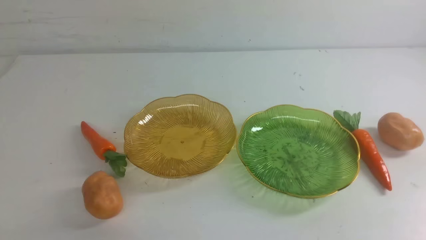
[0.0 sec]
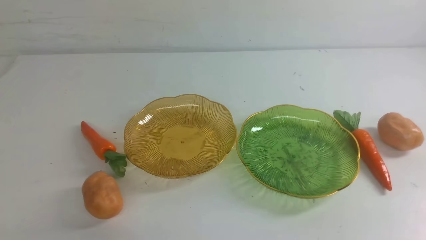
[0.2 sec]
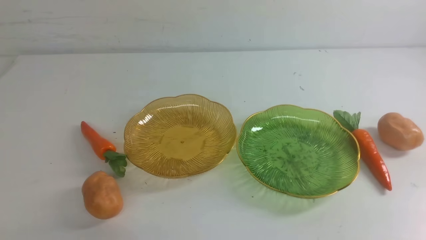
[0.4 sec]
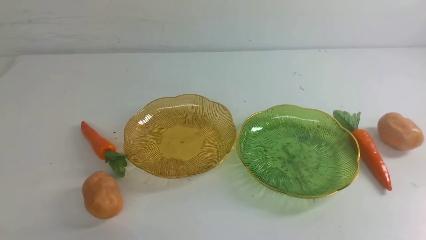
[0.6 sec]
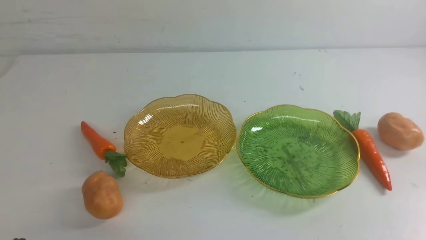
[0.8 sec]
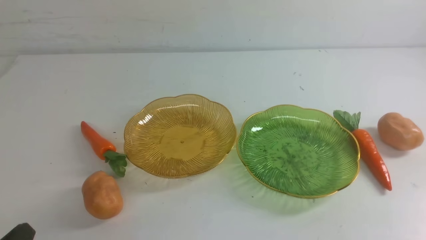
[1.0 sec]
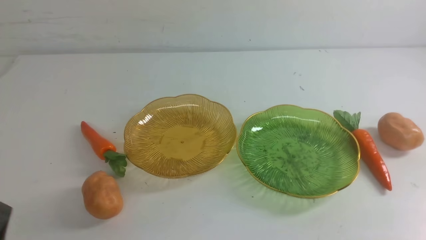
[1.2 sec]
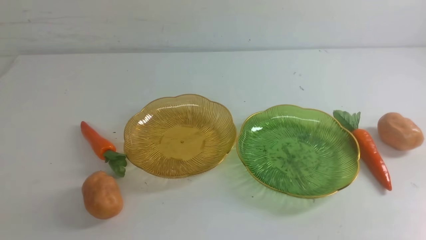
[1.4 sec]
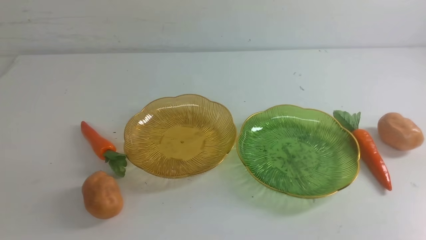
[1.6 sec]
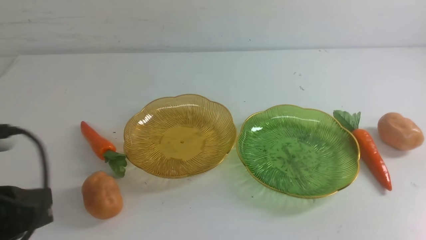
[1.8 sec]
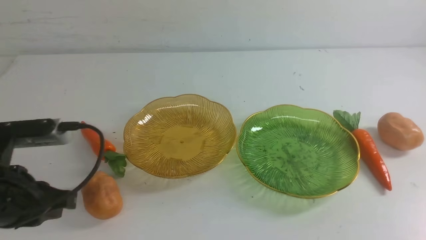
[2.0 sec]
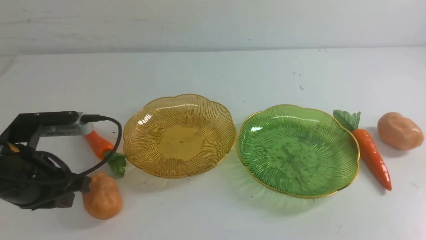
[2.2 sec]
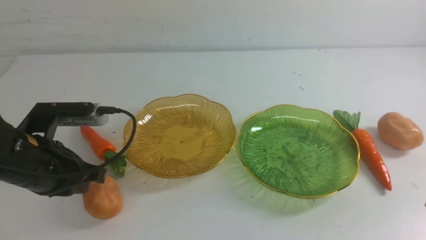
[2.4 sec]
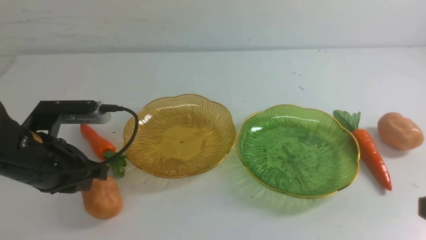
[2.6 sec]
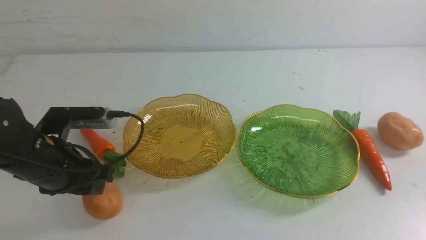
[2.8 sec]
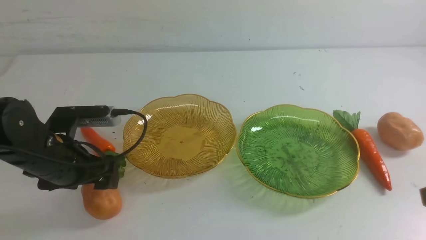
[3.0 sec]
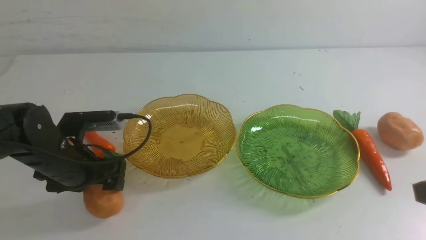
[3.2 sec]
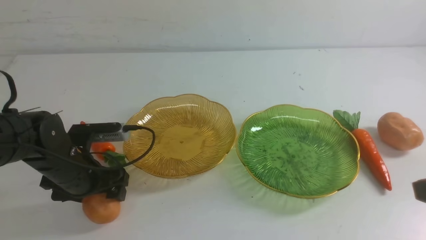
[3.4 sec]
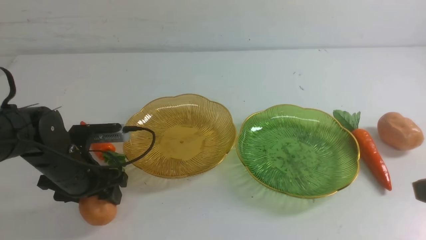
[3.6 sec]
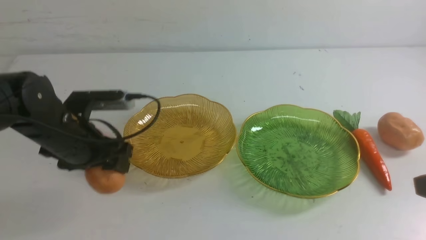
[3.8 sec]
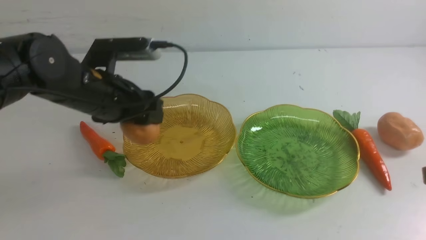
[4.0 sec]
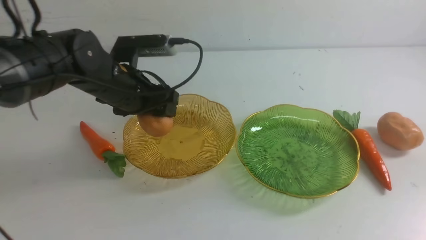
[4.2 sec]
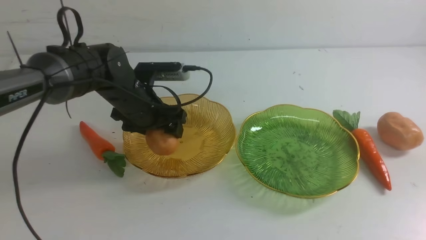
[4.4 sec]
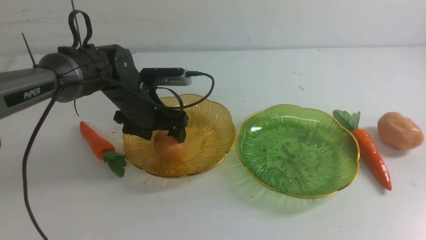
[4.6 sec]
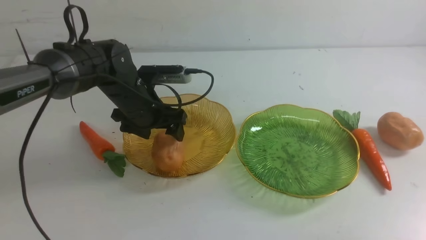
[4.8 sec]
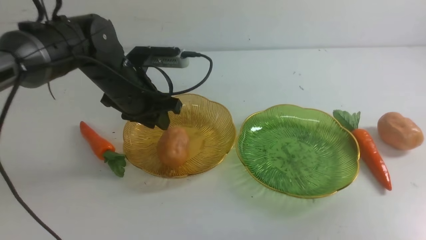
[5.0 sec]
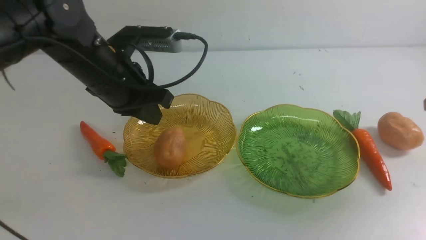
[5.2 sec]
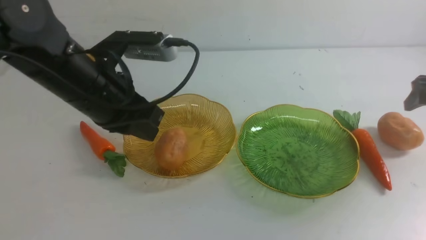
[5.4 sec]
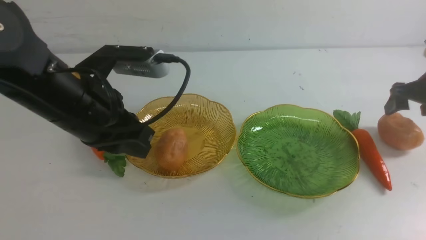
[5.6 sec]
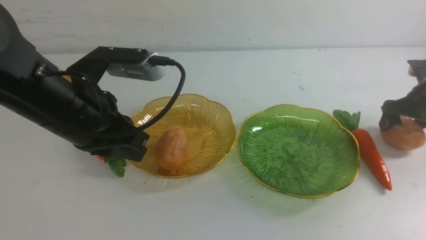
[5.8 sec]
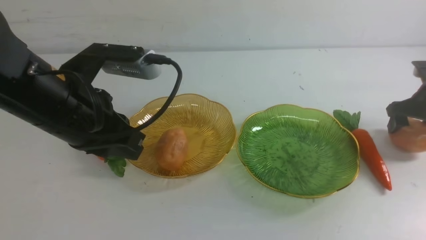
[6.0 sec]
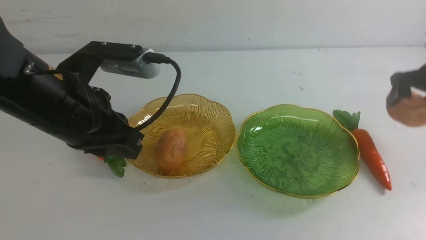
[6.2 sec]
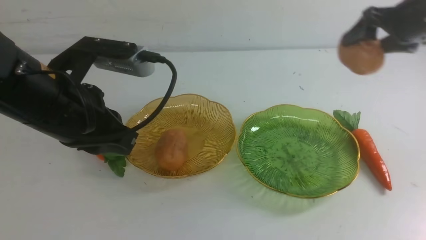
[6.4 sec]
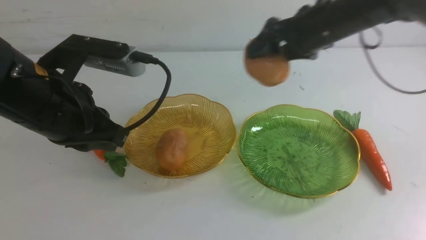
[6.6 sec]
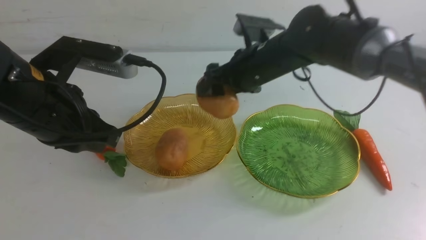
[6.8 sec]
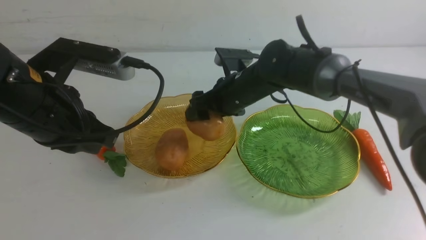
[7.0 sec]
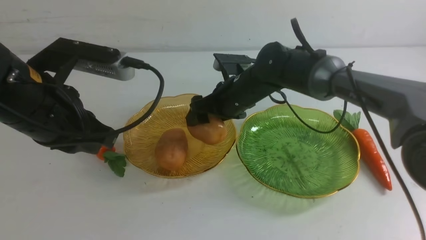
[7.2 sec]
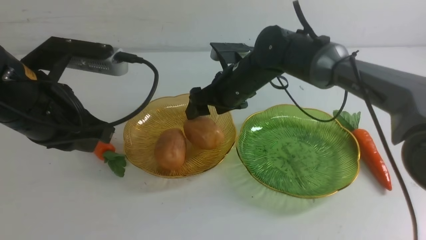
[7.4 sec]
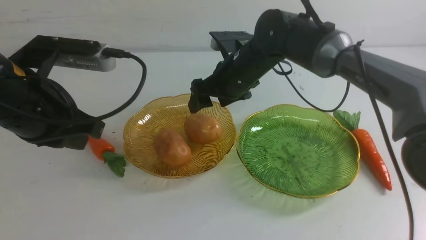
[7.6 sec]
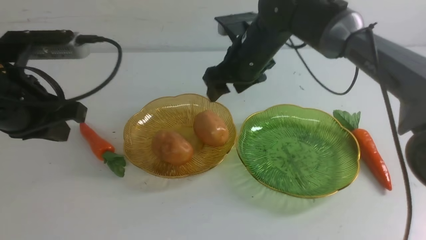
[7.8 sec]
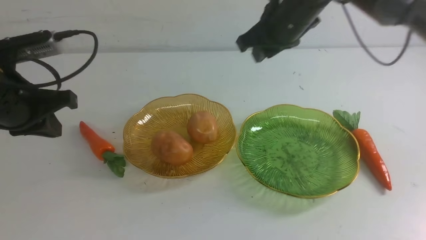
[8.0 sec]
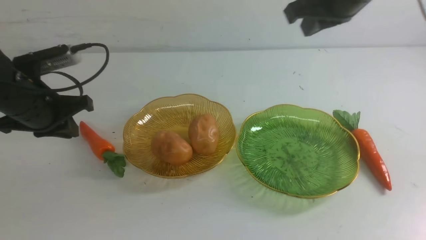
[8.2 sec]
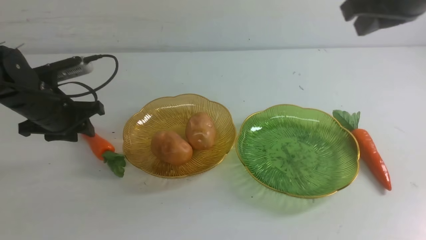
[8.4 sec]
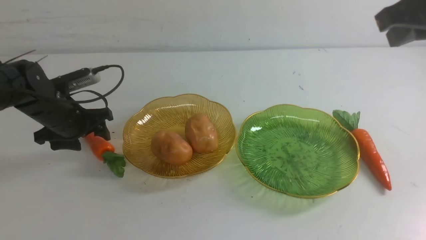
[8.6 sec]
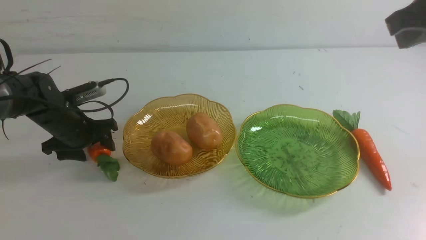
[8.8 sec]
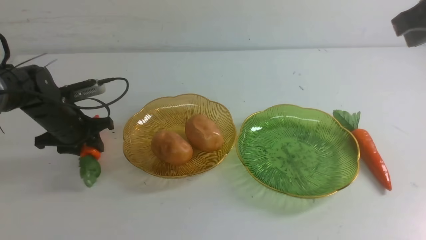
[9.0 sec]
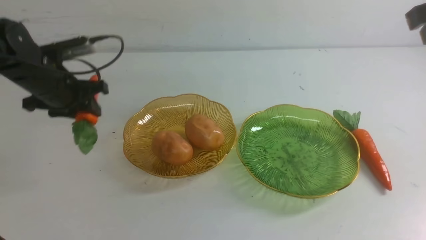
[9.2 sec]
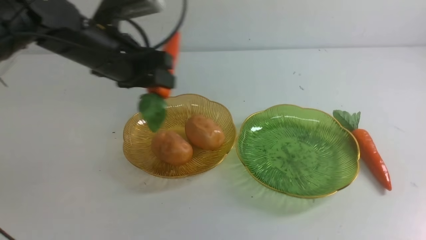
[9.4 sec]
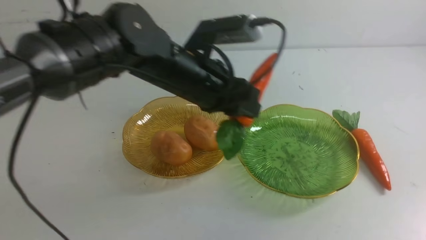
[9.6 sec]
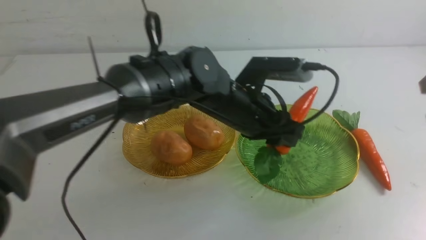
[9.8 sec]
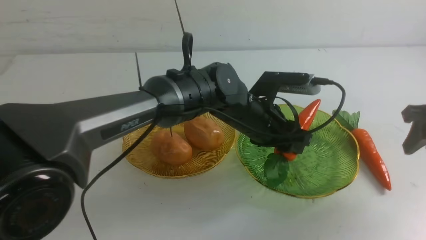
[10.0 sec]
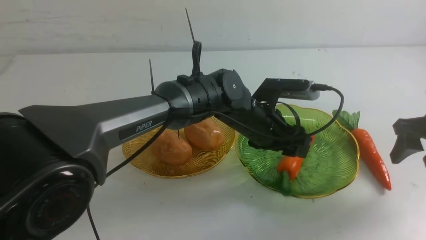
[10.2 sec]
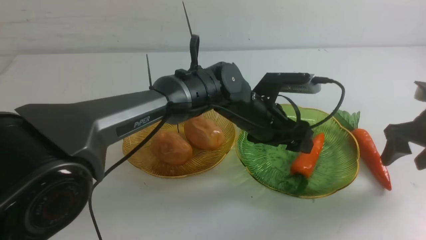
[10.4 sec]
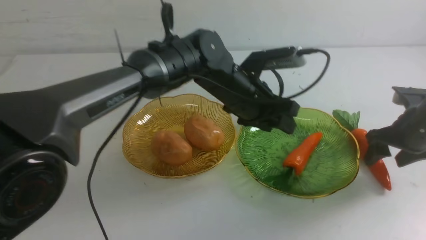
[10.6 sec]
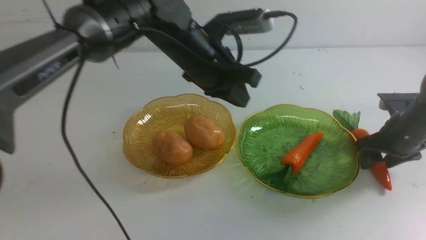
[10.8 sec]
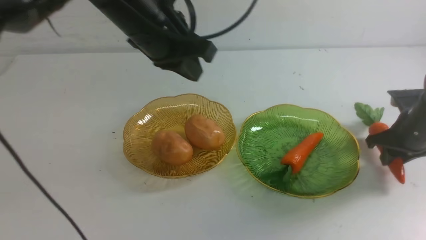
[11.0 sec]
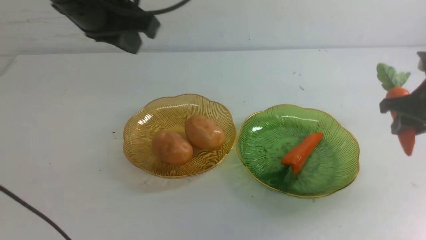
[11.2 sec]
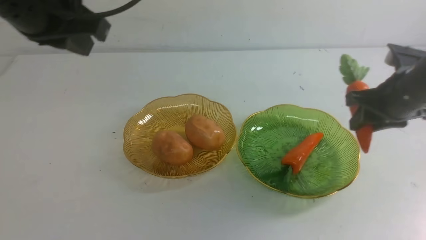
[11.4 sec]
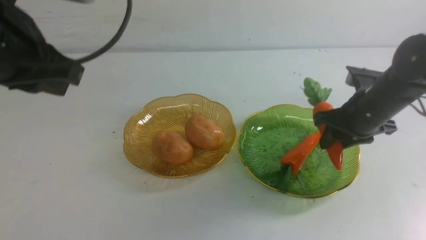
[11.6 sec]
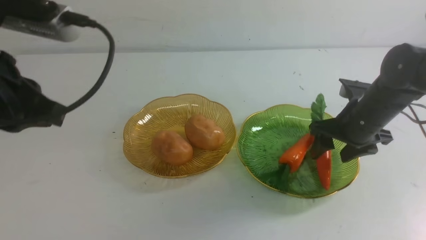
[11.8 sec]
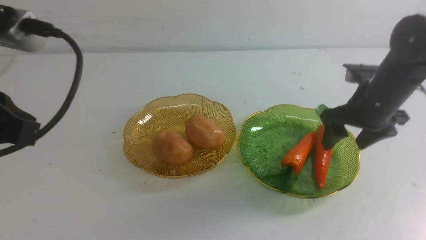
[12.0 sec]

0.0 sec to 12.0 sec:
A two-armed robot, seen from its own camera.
Step, 0.0 sec to 4.8 sec: Grab a potato with your left arm and put it on the left plate.
Step, 5.0 sec to 7.8 sec: Grab a potato with your right arm and put it on the left plate.
Step, 8.0 sec to 10.6 sec: use the left arm to grab a carrot and put it into the right plate.
1.6 sec to 3.0 sec: The left gripper travels forward and downward by approximately 25 cm, and opens up.
3.0 sec to 4.4 sec: The left gripper shifts approximately 15 cm forward and to the right.
4.4 sec to 6.0 sec: The left gripper is displaced backward and upward by about 20 cm, and closes. The right gripper travels forward and downward by roughly 30 cm, and opens.
6.0 sec to 7.6 sec: The left gripper shifts about 5 cm to the left; the right gripper heads to the left, covering roughly 30 cm.
7.6 sec to 9.0 sec: The left gripper goes about 15 cm forward and to the right, moves roughly 15 cm downward and comes back, and opens; the right gripper moves to the right, upward and backward, some 30 cm, and closes up.
9.0 sec to 10.4 sec: The left gripper shifts about 10 cm upward, travels to the right and back again, some 20 cm each way, and closes, while the right gripper travels downward by approximately 20 cm, and opens its fingers.
10.4 sec to 12.0 sec: The left gripper is displaced backward and to the left by approximately 30 cm. The right gripper is displaced backward and upward by about 40 cm, and closes.

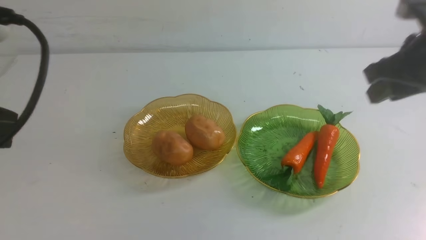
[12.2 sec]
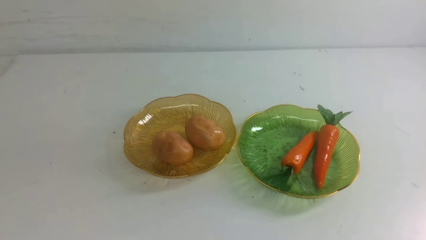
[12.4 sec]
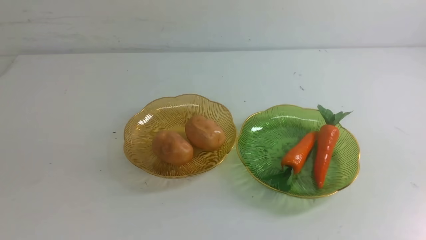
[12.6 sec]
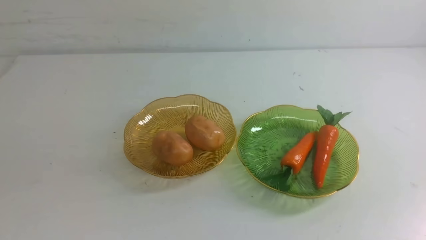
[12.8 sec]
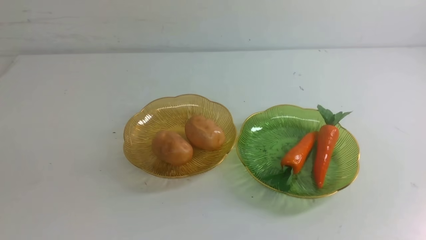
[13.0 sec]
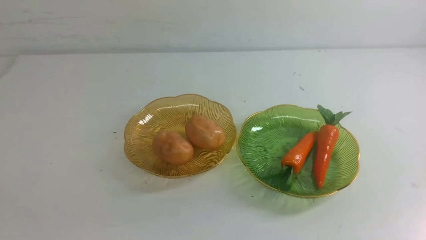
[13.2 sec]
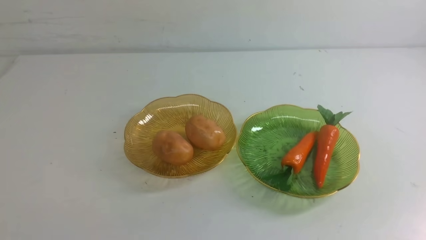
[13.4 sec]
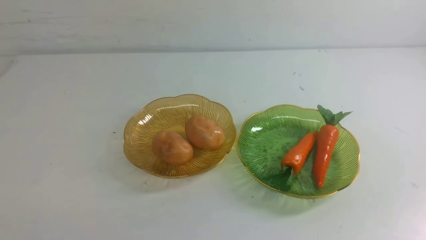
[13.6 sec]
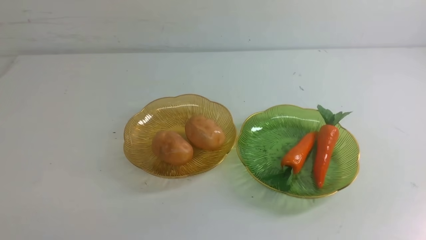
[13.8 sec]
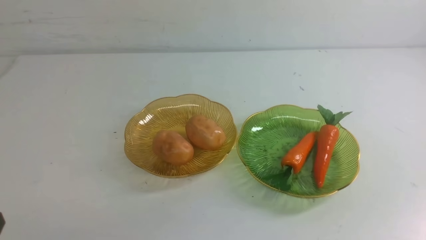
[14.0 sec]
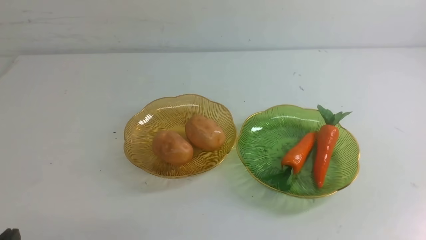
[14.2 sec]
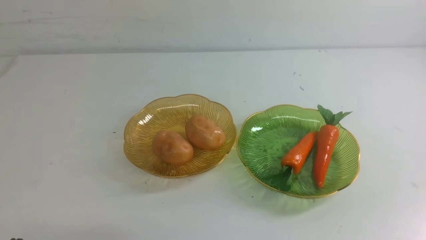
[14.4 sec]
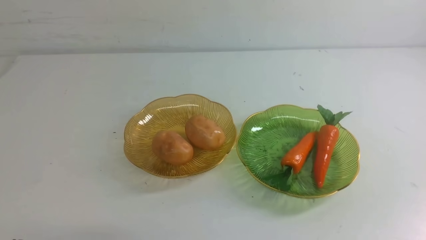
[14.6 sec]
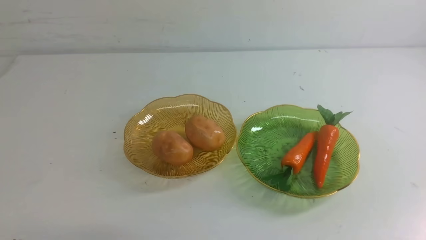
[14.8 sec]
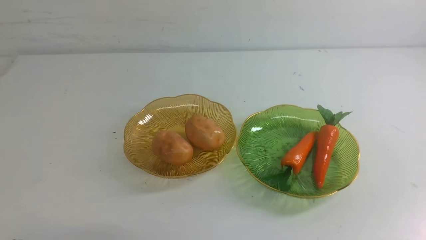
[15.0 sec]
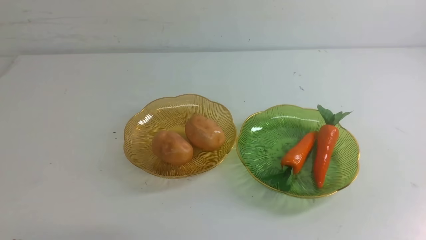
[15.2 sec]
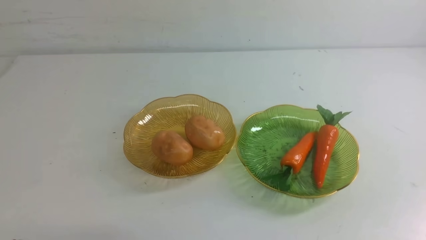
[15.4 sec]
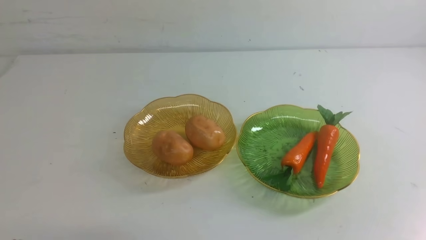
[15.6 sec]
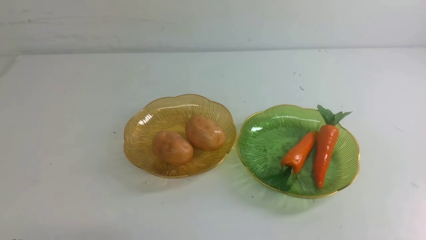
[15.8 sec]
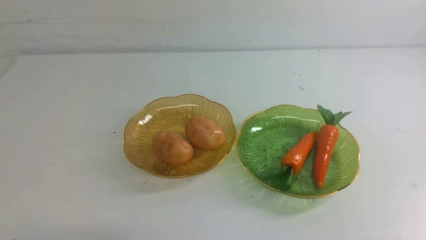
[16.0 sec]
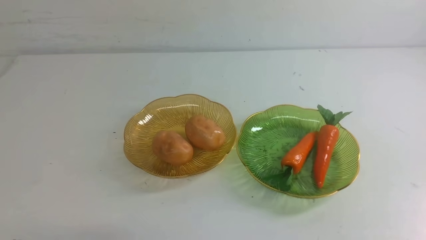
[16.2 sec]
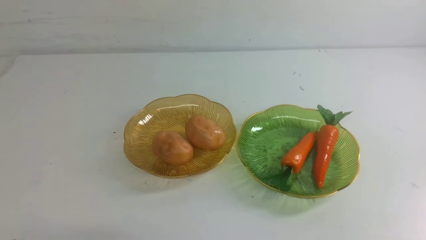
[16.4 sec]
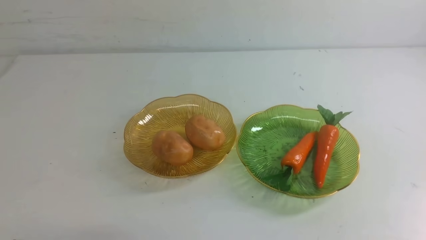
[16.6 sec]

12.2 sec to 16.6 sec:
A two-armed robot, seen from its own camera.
12.2 sec to 13.6 sec: The left gripper heads downward, covering about 25 cm.
15.2 sec to 16.6 sec: Both grippers stay put.
